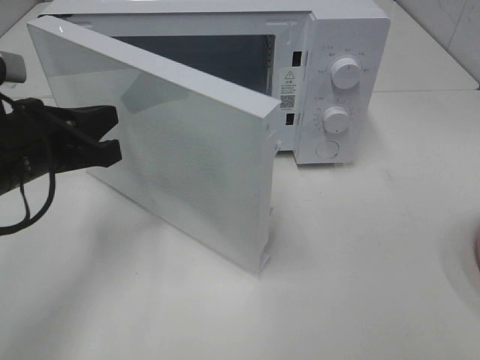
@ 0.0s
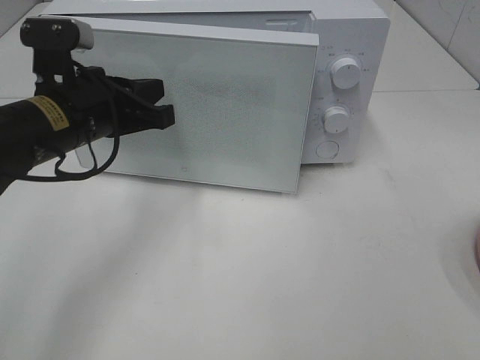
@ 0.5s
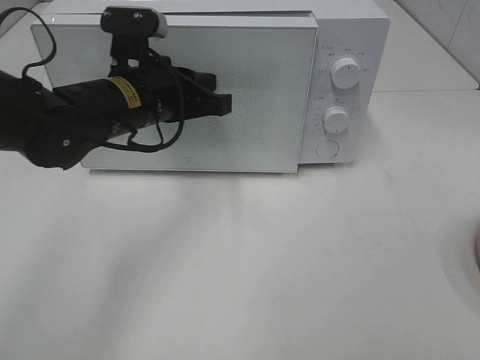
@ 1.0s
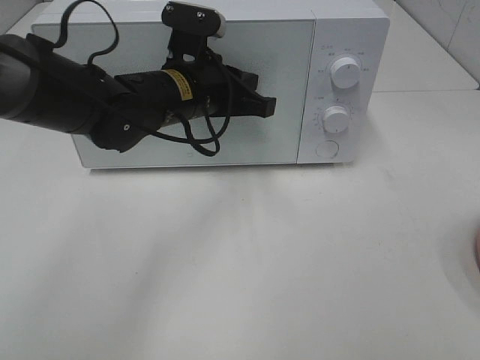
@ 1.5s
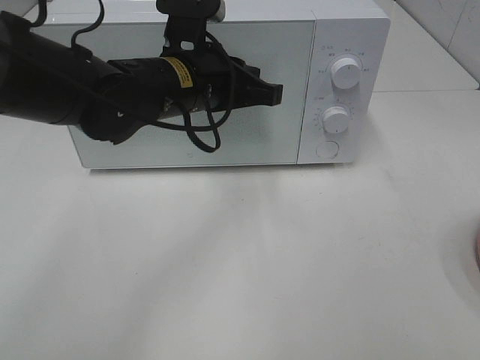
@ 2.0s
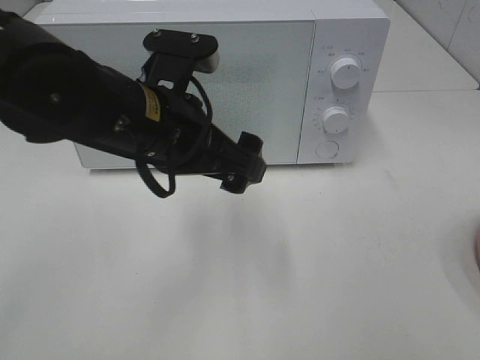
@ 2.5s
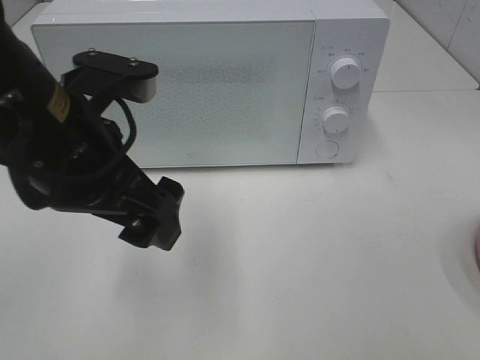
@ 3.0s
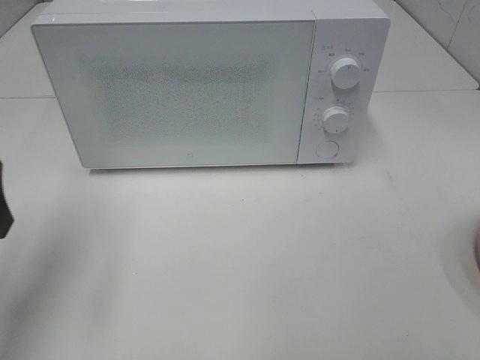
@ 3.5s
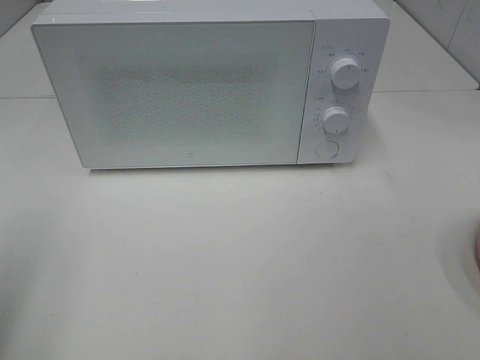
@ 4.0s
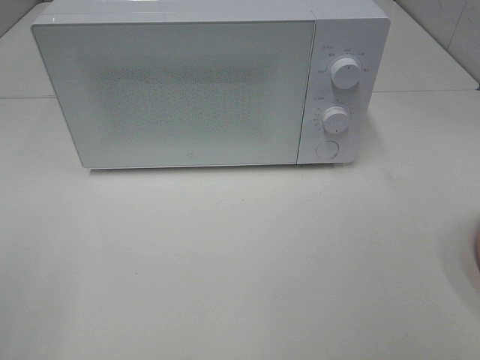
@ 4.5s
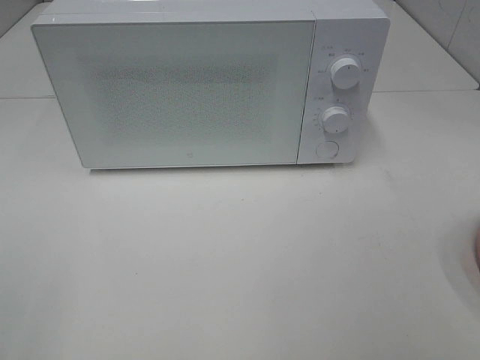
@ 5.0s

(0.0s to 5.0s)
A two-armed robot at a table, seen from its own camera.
Task of the whole recording: Heat the burger.
0.0s - 2.5s: The left gripper shifts some 15 cm to the right, and opens up.
2.5s - 5.0s: The left gripper heads backward and to the left, covering some 35 cm.

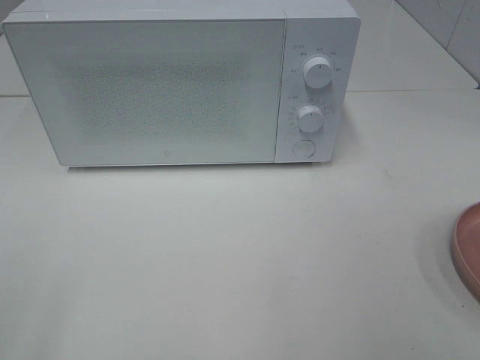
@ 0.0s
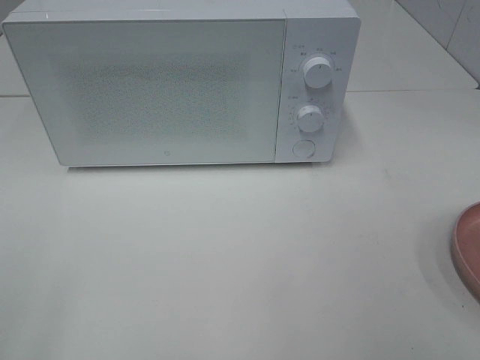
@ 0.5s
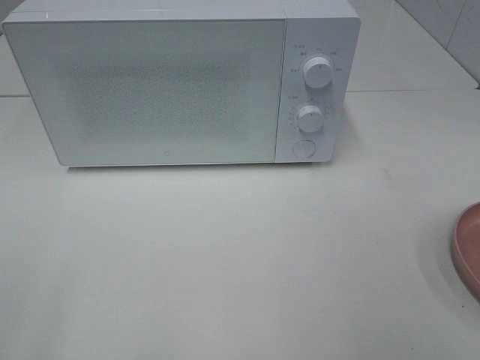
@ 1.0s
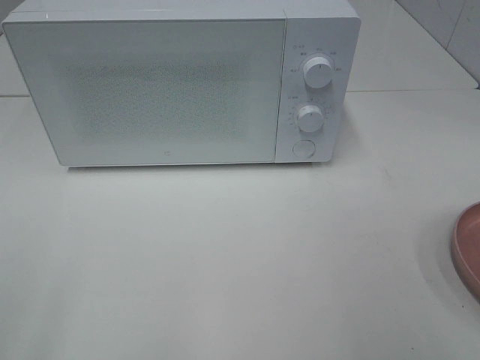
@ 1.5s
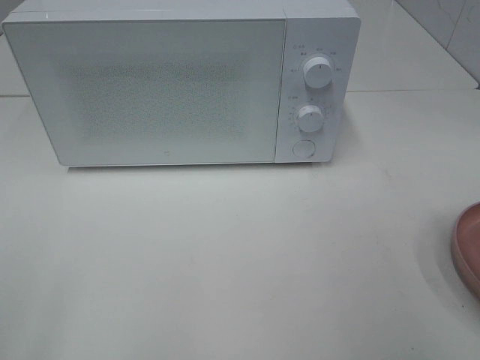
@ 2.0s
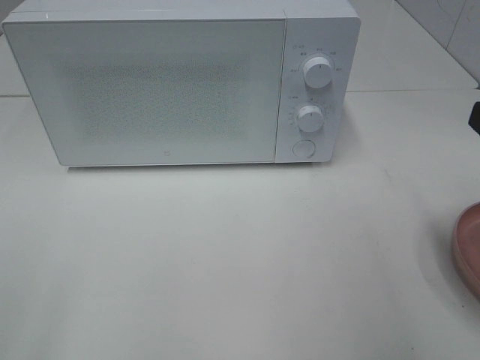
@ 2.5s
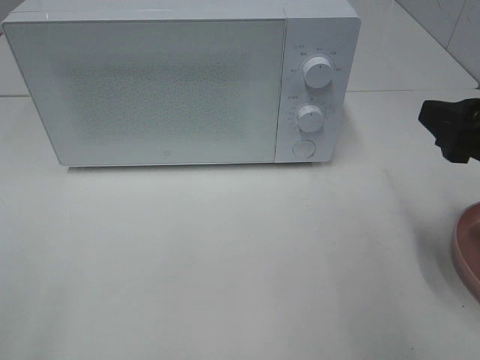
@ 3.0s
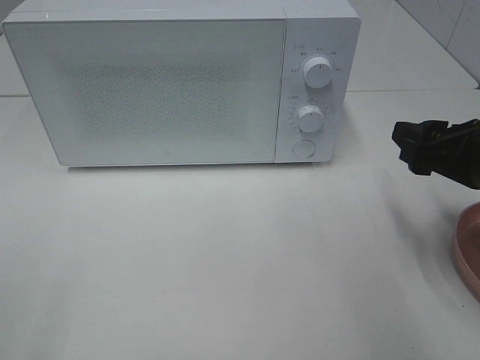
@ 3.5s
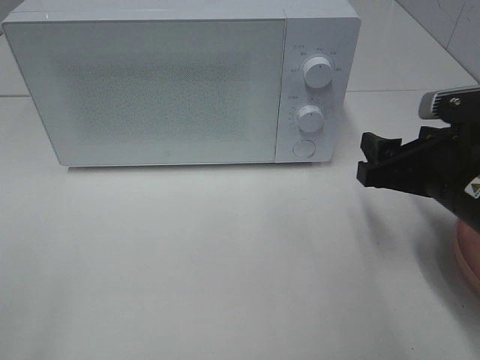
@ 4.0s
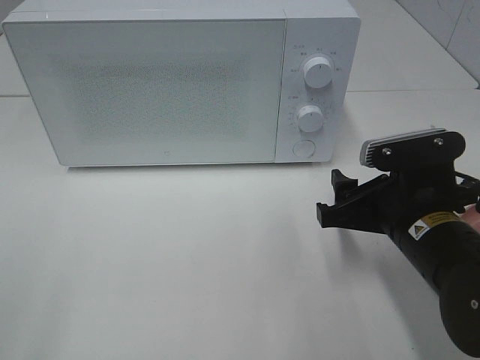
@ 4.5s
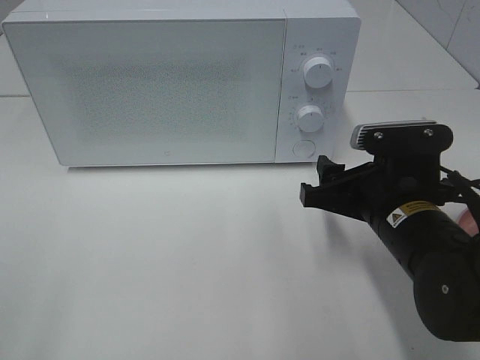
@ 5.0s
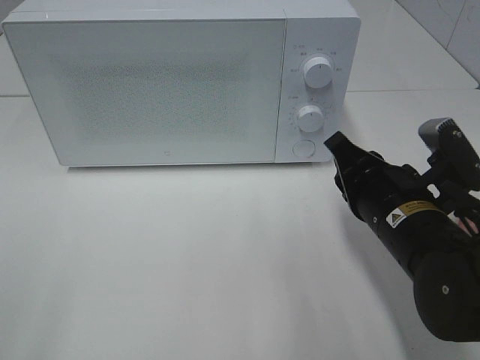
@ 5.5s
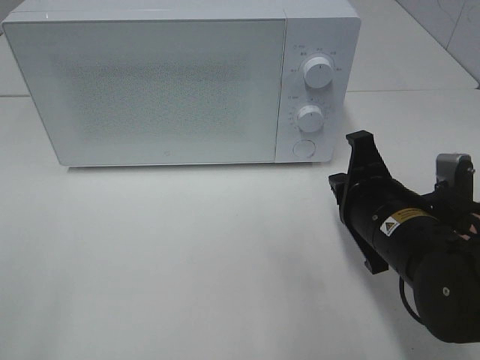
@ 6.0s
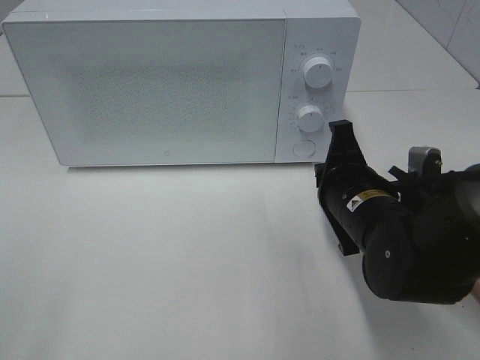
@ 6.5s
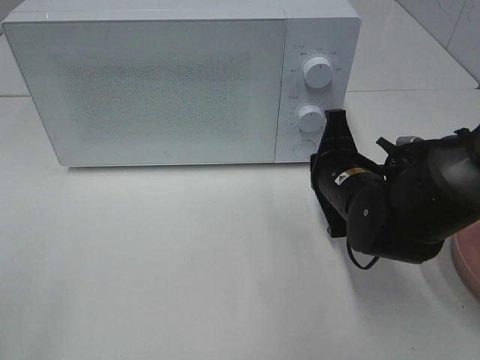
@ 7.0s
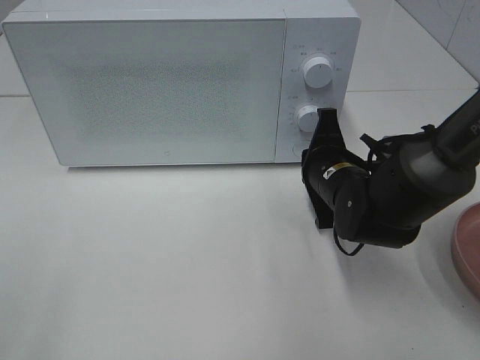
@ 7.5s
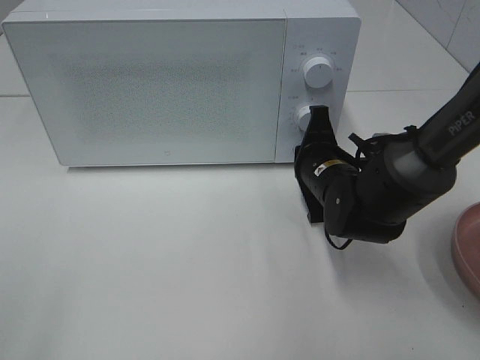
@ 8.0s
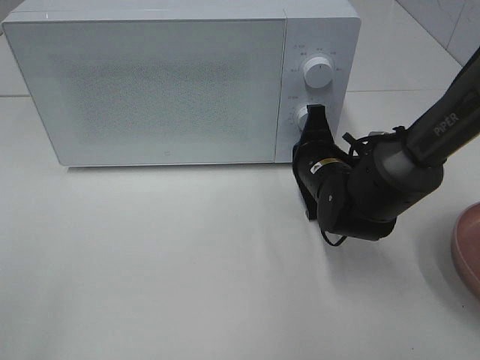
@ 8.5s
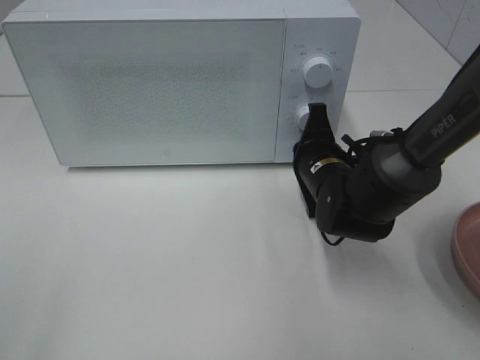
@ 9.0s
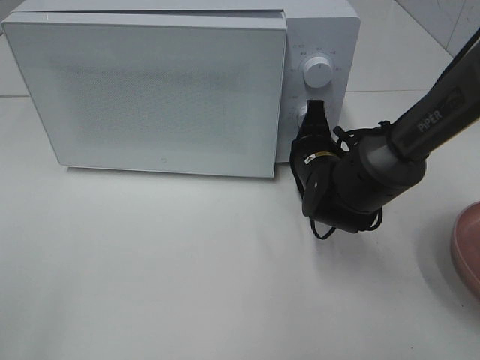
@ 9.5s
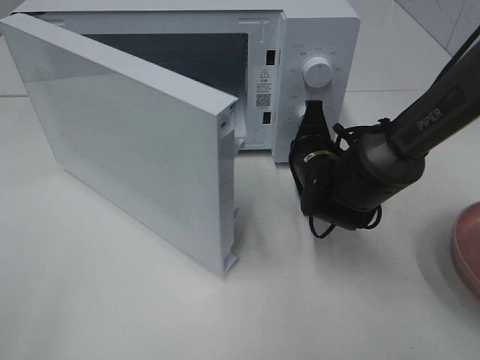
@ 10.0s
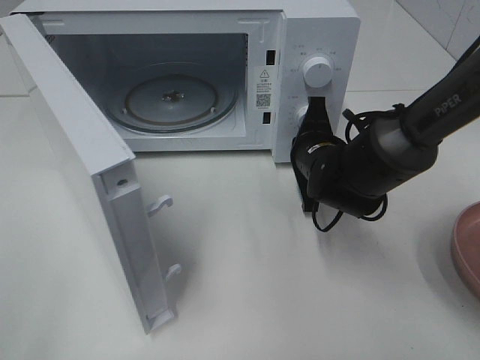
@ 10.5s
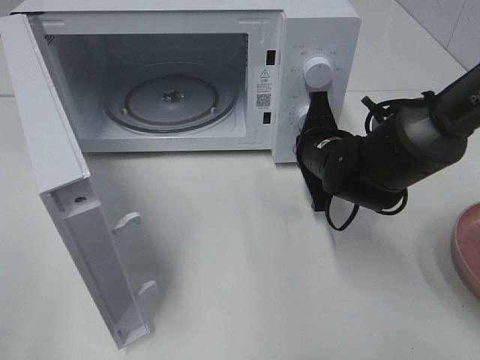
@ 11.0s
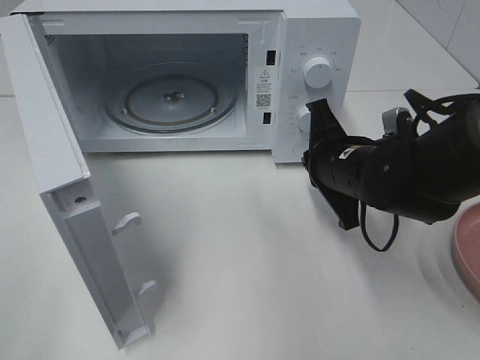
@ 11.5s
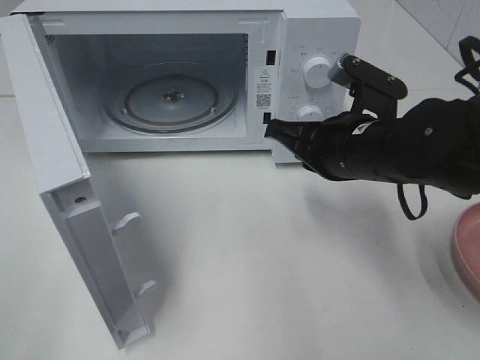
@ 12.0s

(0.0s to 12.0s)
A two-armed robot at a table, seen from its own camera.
Task of the whole recording: Heat the burger.
Step, 0.0s - 11.0s: Right hand: press the switch.
2.0s - 4.0s: The right gripper heads forward, downward and to the left, covering roughly 15 cm.
4.0s - 6.0s: The right gripper shifts some 5 cm to the left, and closes up.
6.0s - 8.0s: The right gripper moves forward, about 10 cm.
10.0s - 12.0s: The right gripper is displaced upward and backward by some 10 cm.

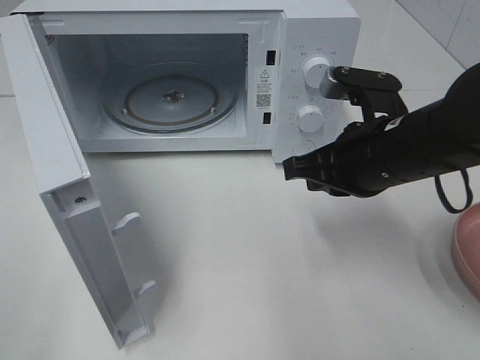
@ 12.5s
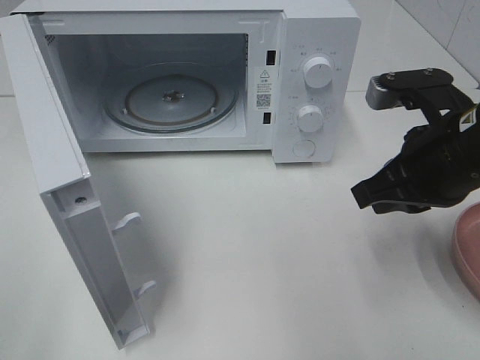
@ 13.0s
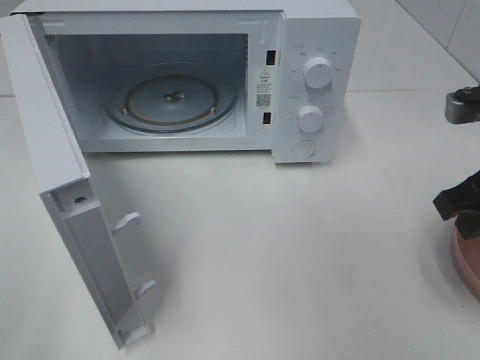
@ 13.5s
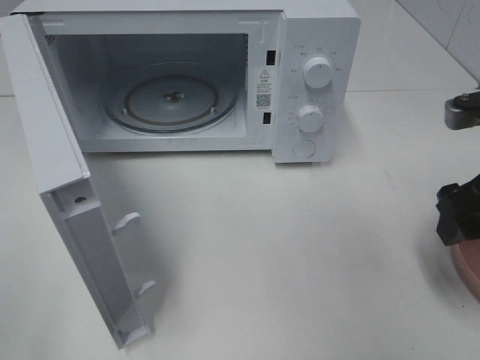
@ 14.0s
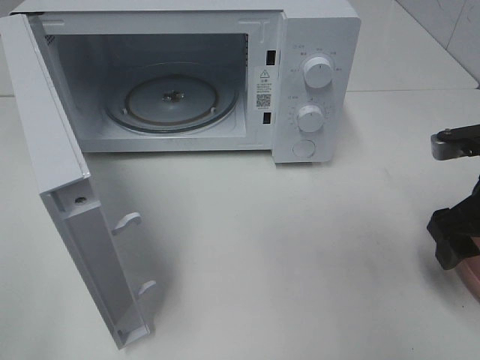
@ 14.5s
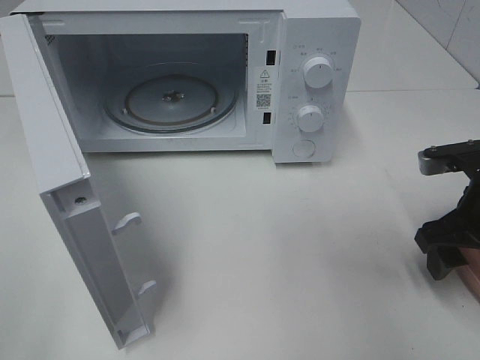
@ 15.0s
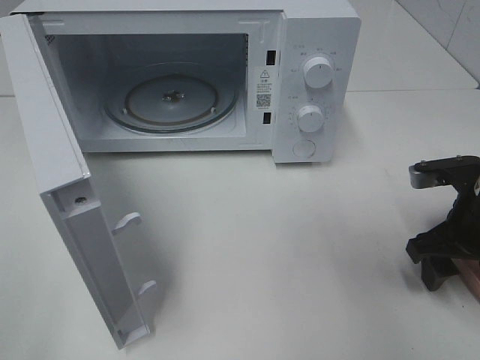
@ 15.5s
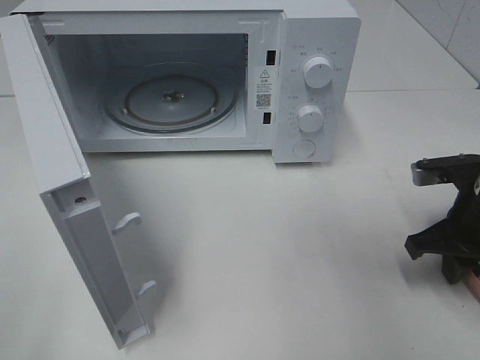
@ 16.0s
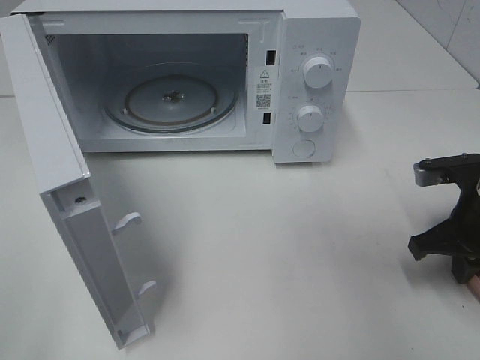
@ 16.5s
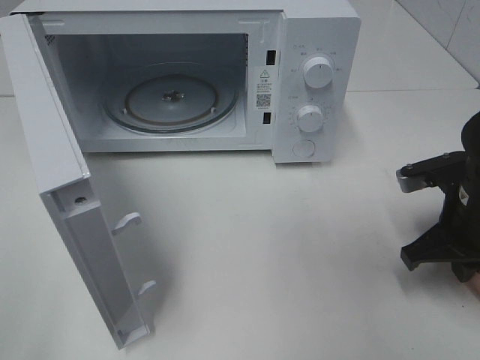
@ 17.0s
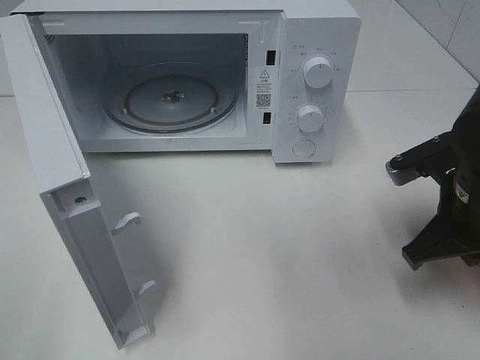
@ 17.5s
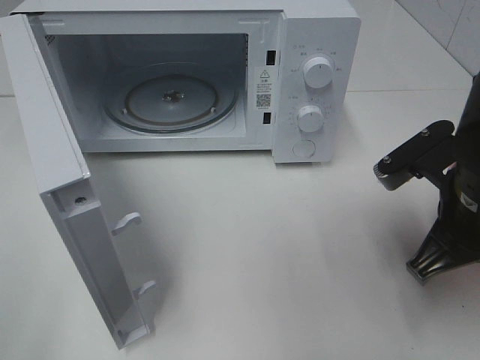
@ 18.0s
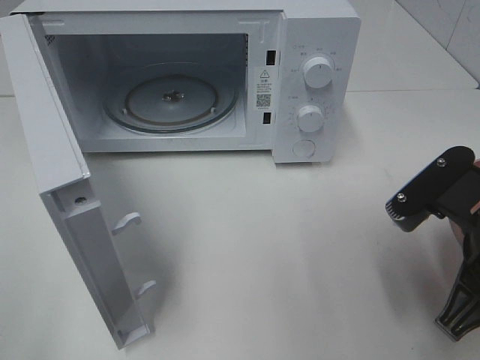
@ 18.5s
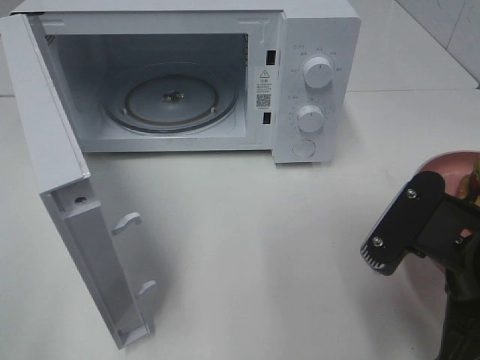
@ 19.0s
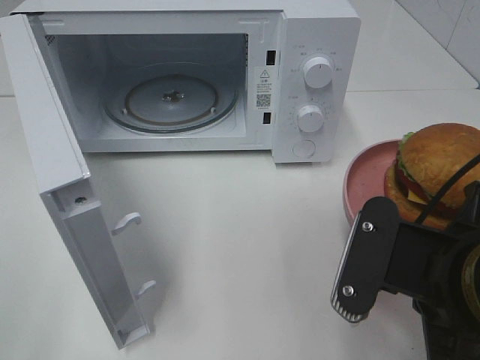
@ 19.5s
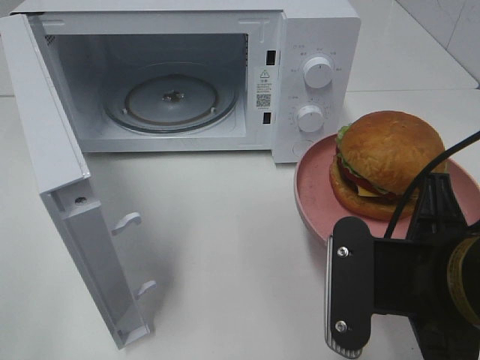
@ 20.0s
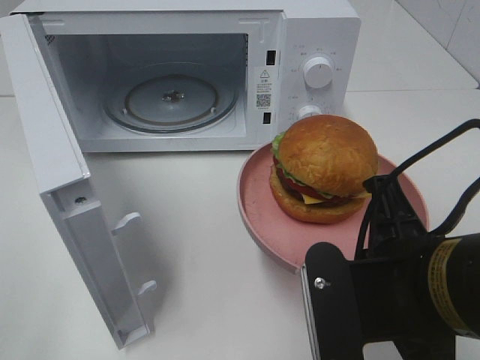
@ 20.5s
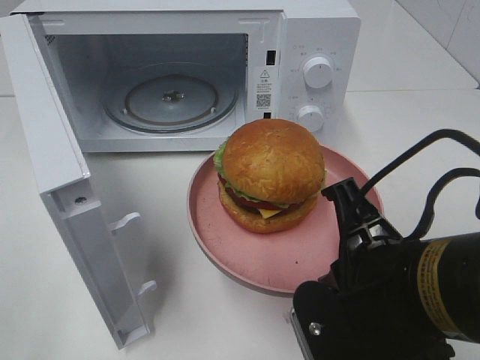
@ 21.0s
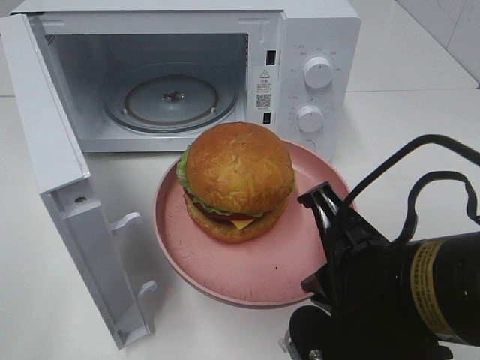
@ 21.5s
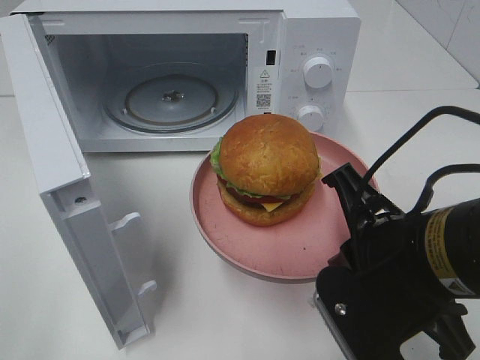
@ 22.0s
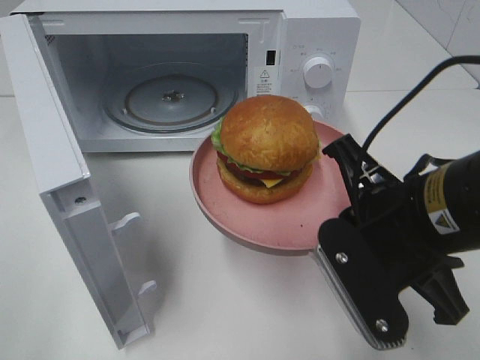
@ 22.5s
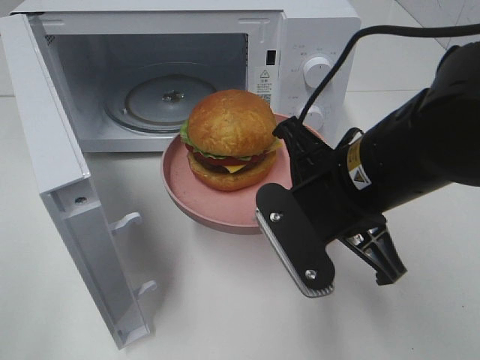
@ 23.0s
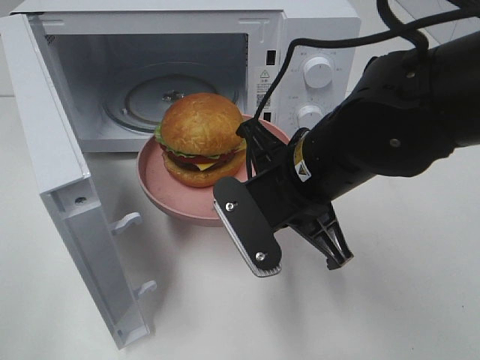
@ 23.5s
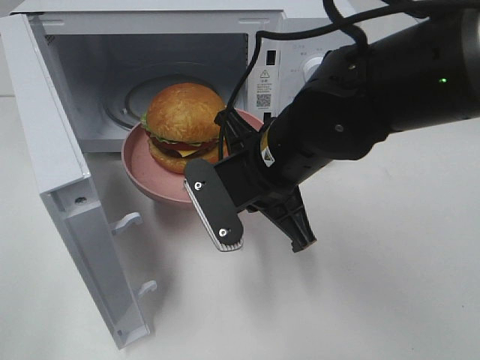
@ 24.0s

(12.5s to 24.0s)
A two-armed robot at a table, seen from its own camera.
Task of the whole recording: Heat the burger.
Step, 12.5s - 16.5s: Right hand: grab the plate with the hamburger.
12.5s - 14.5s: The right gripper travels to the right by roughly 10 cm, and opens.
14.5s - 16.5s: The right gripper closes its fingers.
16.5s - 18.5s: The right gripper heads backward, upward and to the left, covering roughly 15 cm.
18.5s - 20.0s: The right gripper travels to the left by roughly 5 cm.
22.0s - 24.0s: The right gripper shifts about 15 cm forward and to the left.
